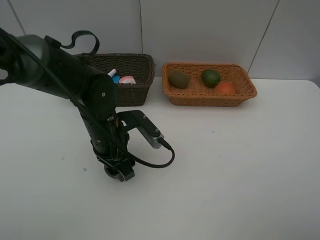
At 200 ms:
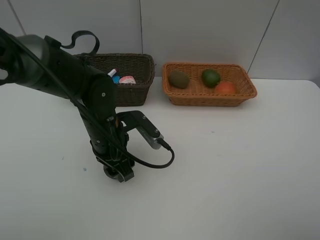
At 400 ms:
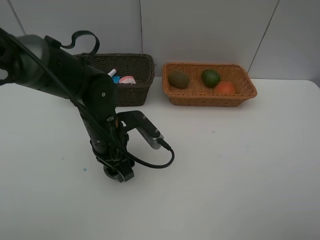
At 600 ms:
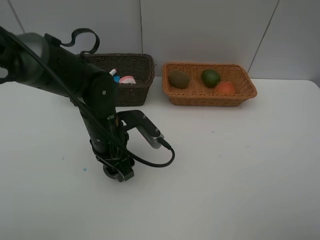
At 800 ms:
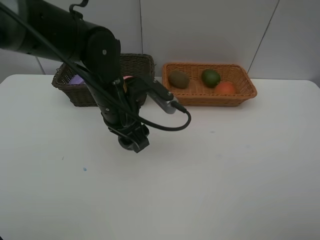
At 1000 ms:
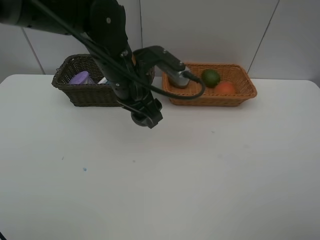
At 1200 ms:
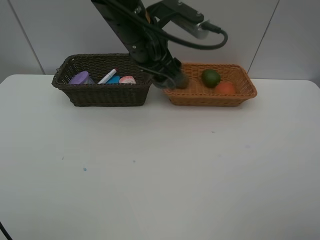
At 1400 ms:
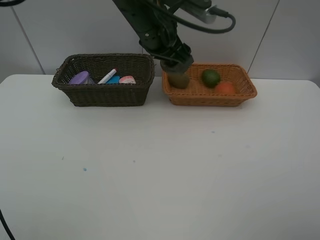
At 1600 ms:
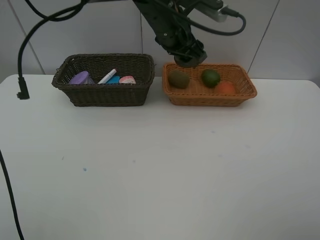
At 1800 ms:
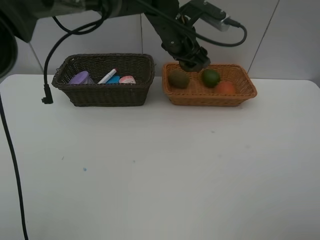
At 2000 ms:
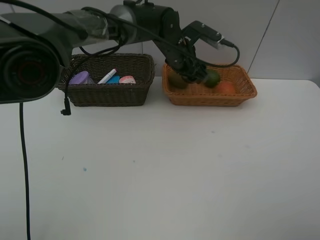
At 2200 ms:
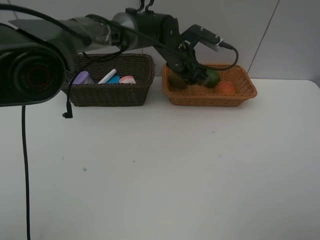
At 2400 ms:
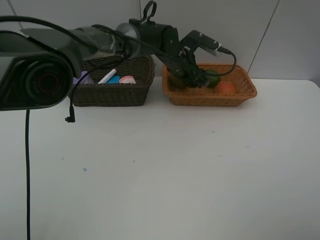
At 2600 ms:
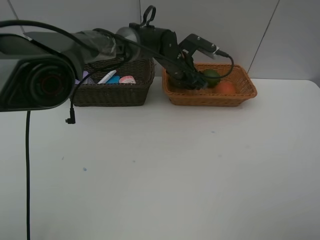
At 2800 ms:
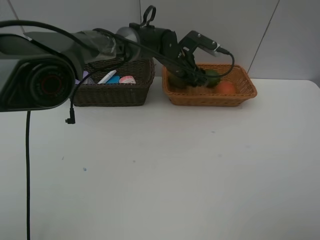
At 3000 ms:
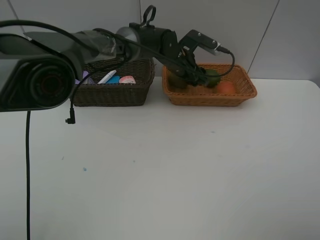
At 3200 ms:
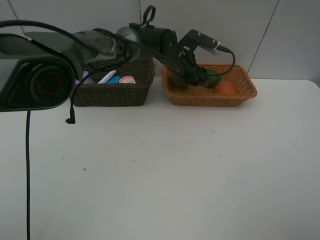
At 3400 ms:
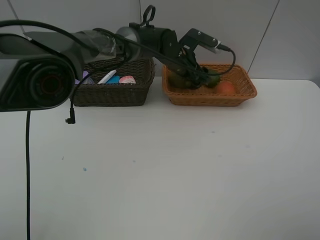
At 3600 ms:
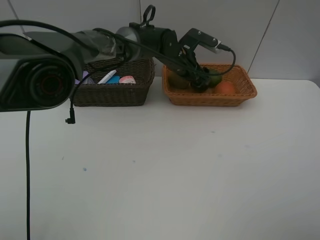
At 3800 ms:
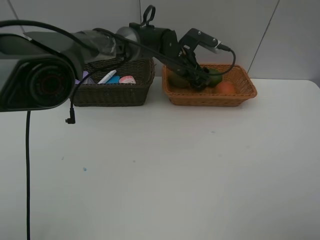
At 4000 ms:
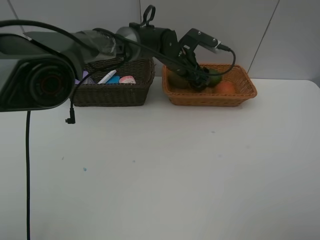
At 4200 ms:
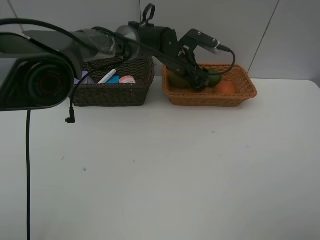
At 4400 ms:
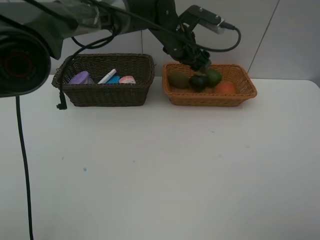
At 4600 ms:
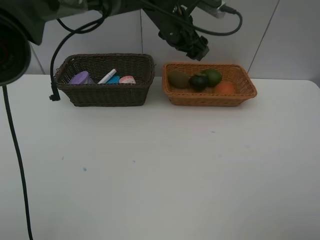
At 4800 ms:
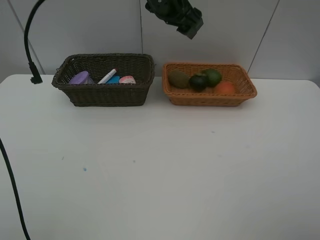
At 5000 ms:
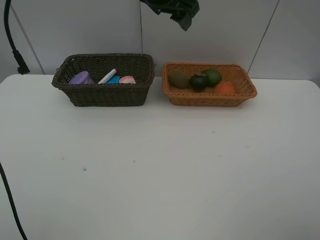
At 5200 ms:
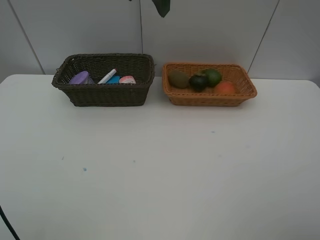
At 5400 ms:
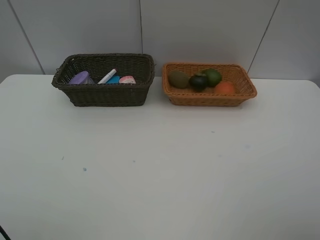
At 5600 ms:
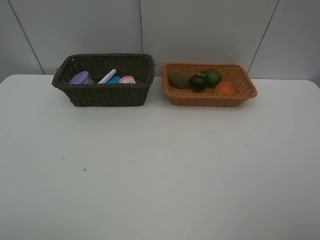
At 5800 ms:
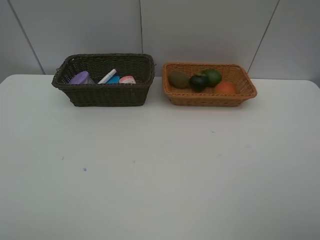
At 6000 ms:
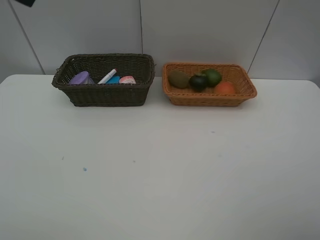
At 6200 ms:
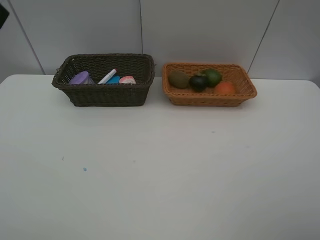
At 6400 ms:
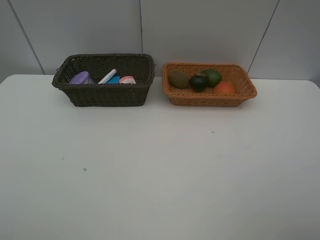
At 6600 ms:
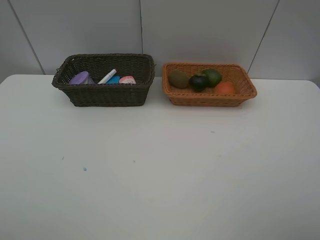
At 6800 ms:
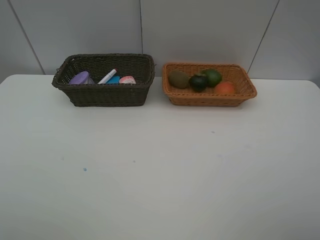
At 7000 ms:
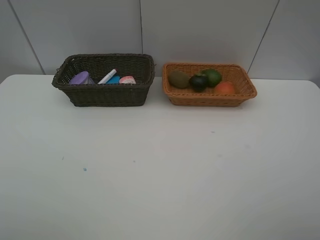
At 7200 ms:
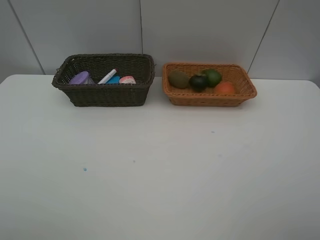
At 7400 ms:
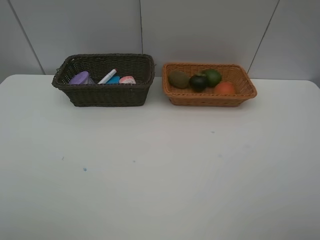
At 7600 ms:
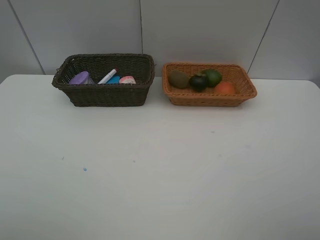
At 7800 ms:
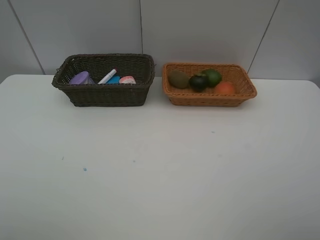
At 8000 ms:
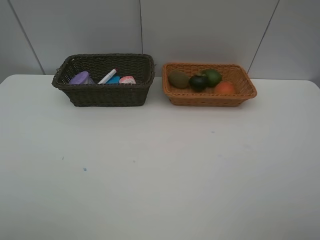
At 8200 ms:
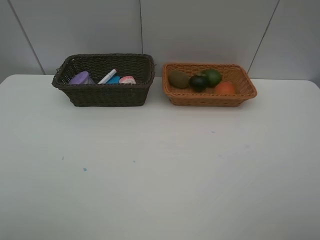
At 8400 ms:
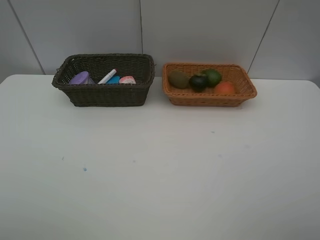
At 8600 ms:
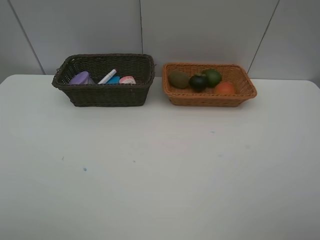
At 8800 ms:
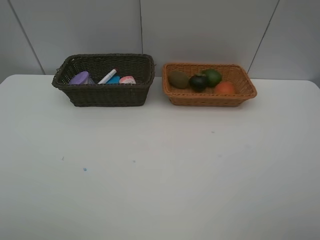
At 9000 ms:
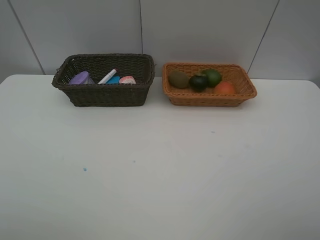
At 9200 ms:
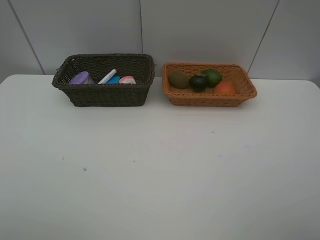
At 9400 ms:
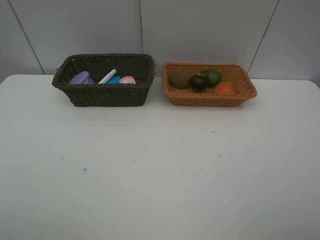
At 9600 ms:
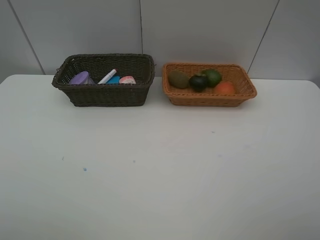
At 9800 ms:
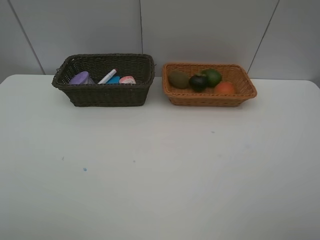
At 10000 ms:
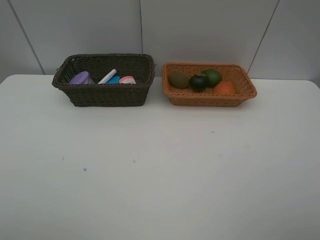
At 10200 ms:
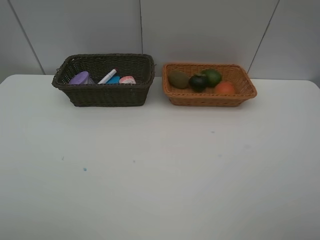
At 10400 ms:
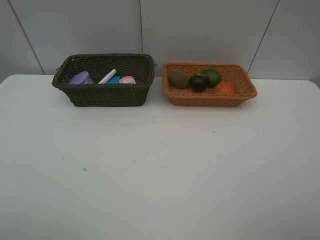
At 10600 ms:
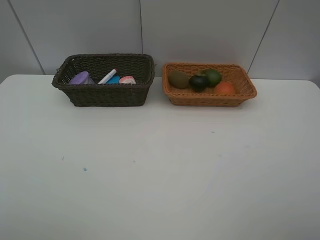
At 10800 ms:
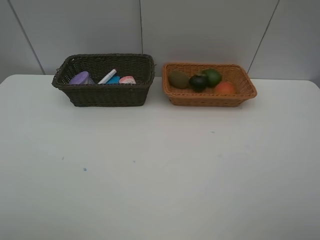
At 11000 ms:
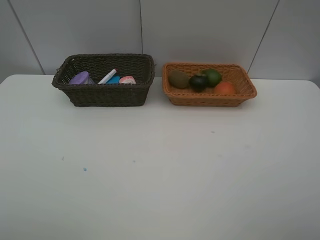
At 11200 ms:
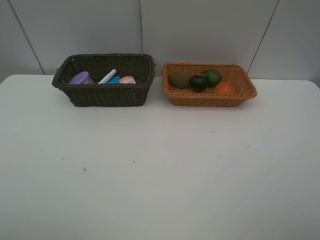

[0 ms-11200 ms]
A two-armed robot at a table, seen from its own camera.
Task of the whole recording: Place multiple objects separately in different baskets.
Step, 800 ms to 4200 ms: Place the mangosteen in the light basket with left gripper.
0 ms to 1600 ms: The left gripper goes roughly 25 cm forward, upward and to the right.
1600 ms to 3200 ms: The left gripper heads downward and forward, covering some 10 cm.
3200 ms to 4800 ms: The left gripper moves upward, some 15 cm.
4800 ms to 6400 ms: The left gripper moves backward and to the left, approximately 40 cm.
9600 ms to 11200 ms: Both grippers stay about where they are.
